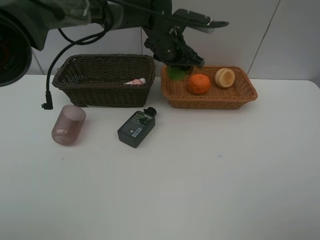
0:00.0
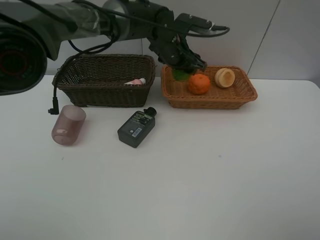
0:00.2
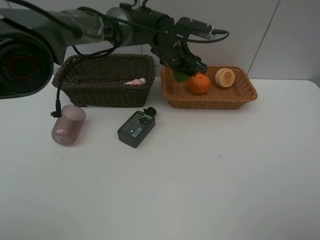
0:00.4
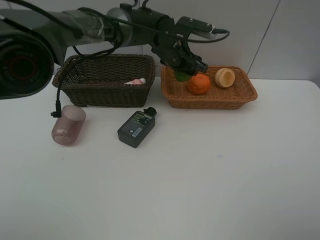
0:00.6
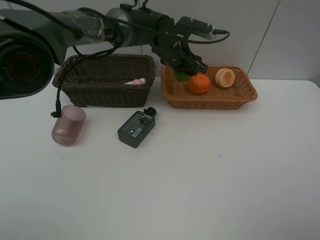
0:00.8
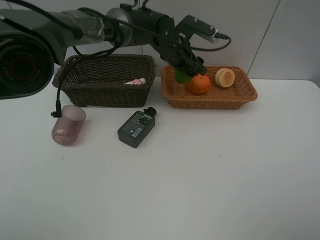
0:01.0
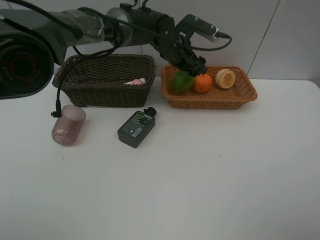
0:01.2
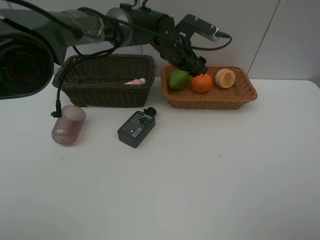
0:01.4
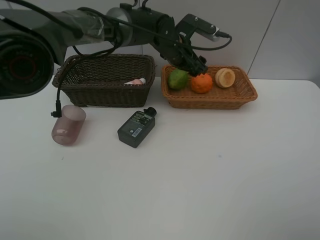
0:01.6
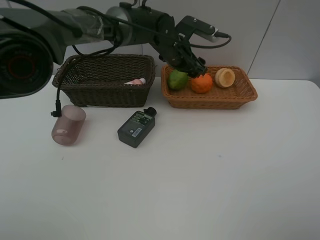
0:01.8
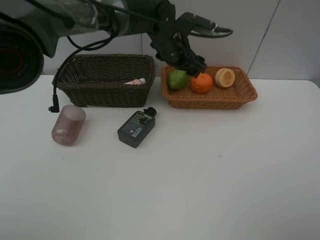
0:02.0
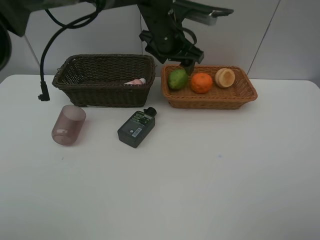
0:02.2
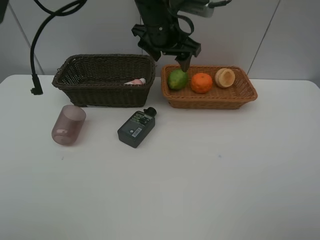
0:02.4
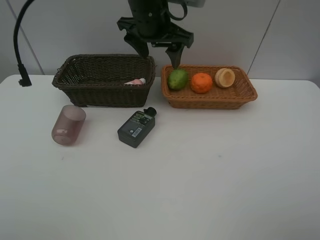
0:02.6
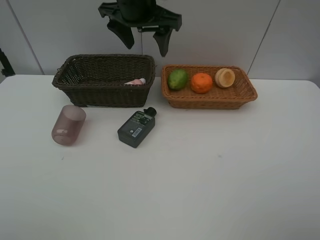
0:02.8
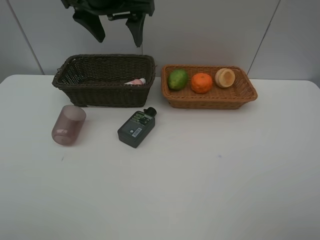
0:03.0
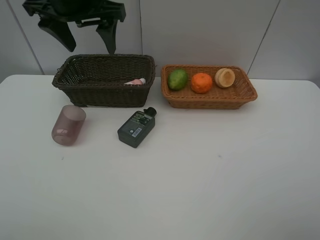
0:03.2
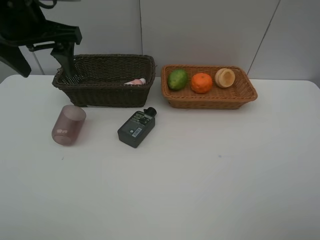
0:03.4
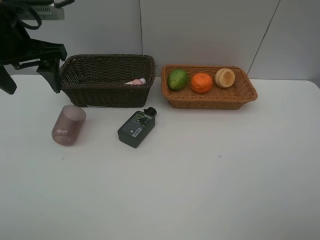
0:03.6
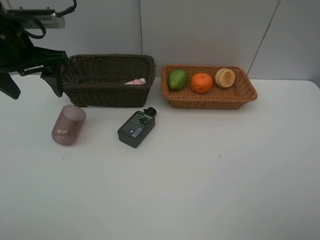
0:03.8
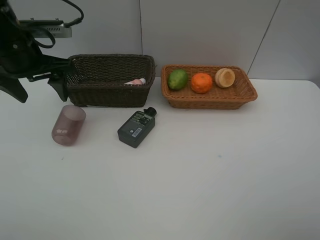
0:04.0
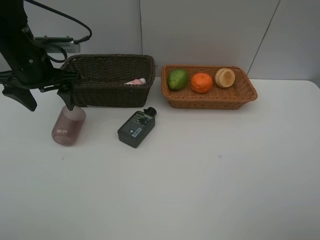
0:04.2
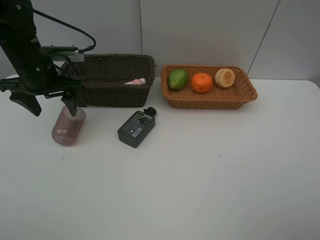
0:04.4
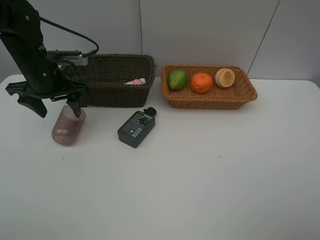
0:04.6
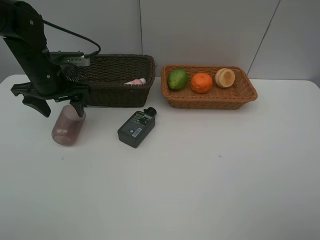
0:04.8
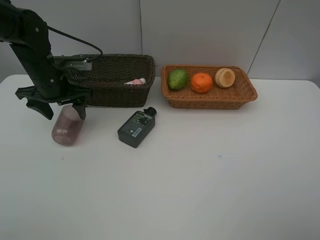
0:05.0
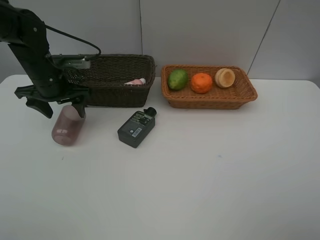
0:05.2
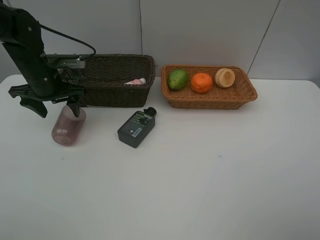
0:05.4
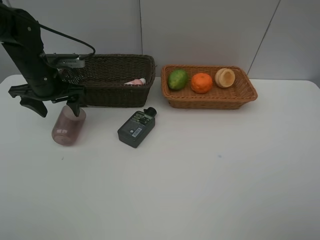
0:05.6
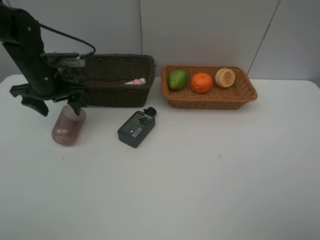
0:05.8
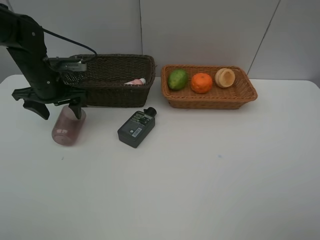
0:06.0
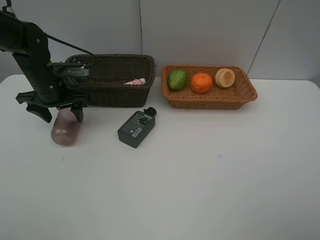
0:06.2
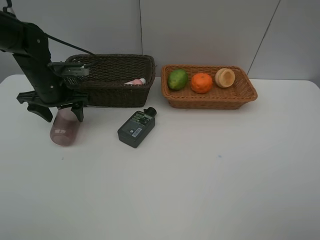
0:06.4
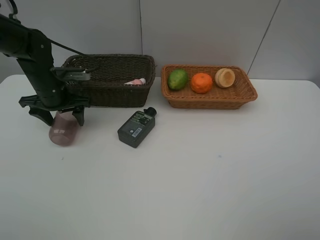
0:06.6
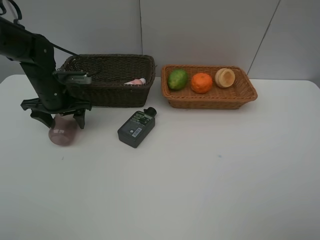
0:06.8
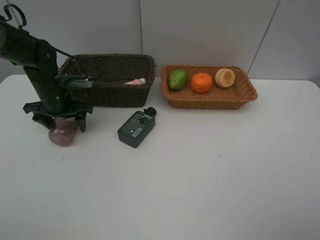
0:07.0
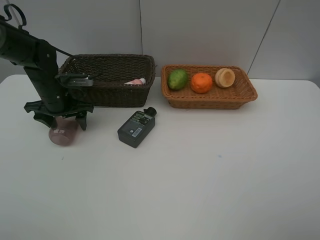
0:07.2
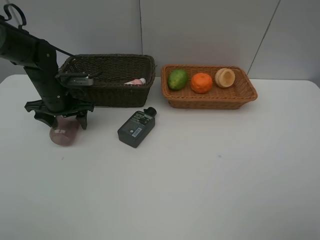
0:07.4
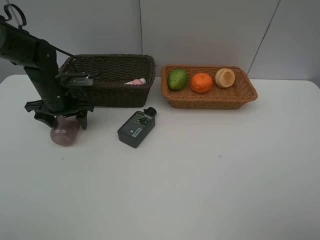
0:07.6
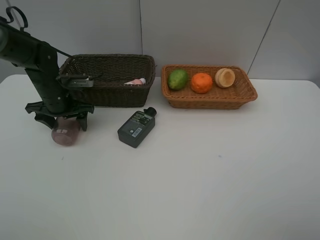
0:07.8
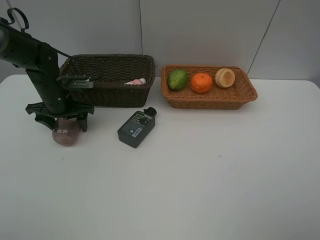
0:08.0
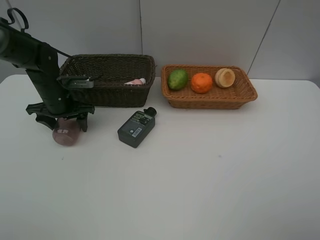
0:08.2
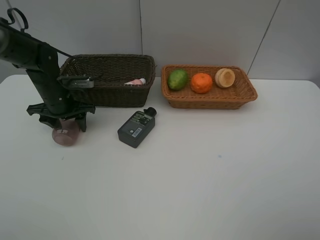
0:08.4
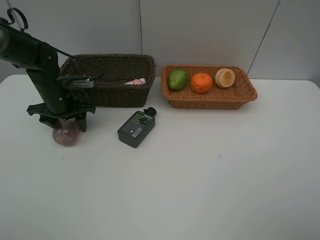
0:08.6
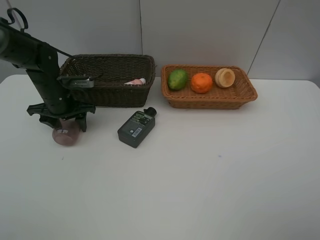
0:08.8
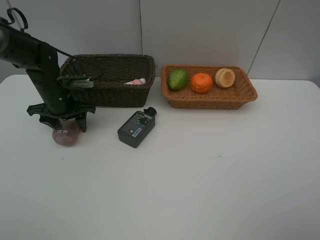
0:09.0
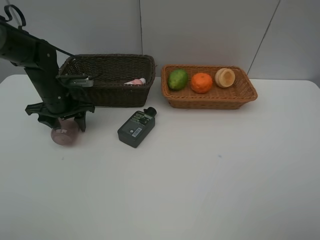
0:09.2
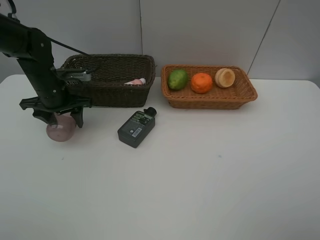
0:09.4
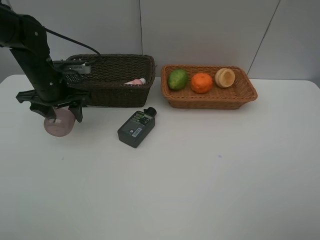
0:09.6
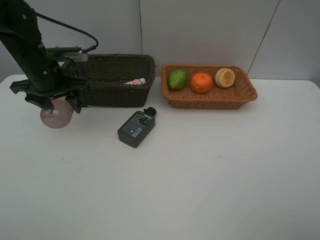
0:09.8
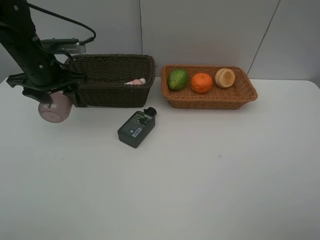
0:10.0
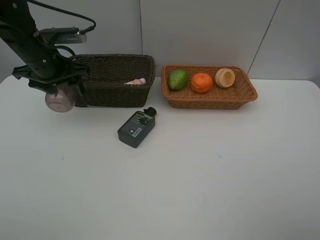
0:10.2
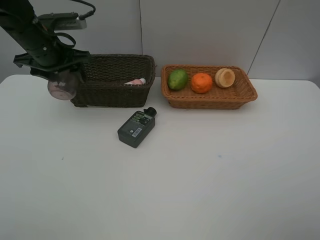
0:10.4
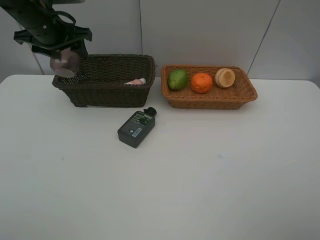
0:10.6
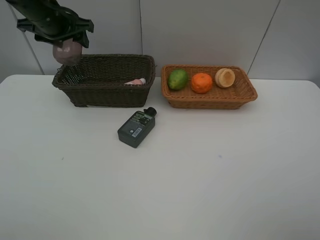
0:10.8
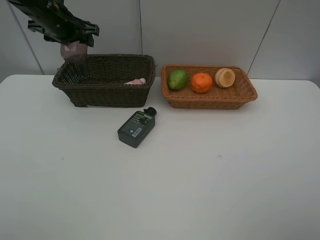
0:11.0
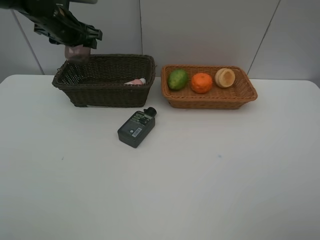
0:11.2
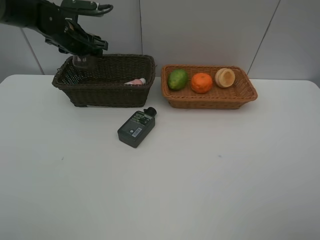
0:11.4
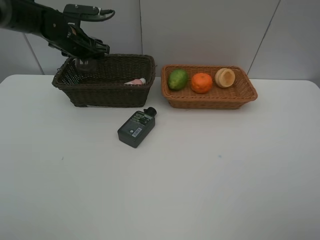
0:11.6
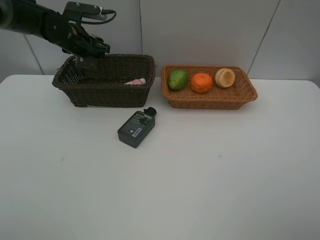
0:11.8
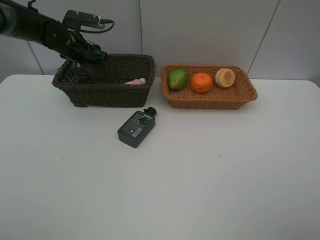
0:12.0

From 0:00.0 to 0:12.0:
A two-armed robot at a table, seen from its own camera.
Task of the whole recording: place multiple objects separately in different baskets.
From 0:00.0 to 0:01.6: The left gripper opens its fingers.
From 0:01.6 to 0:03.0: The left gripper travels upward, to the left and backward by roughly 20 cm.
From 0:03.0 to 0:04.4: The left gripper travels downward and to the left by approximately 20 cm.
From 0:04.4 to 0:06.0: The left gripper moves roughly 5 cm.
From 0:06.0 to 0:07.6: The grippers move only a little.
From 0:07.6 to 0:09.0: The left gripper closes.
From 0:09.0 to 0:10.4: The left gripper is displaced upward by about 15 cm.
From 0:10.4 to 0:12.0: The left gripper shifts roughly 10 cm forward and downward.

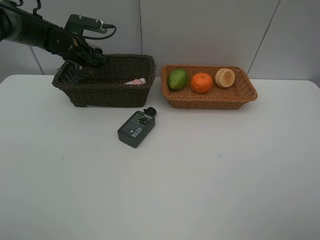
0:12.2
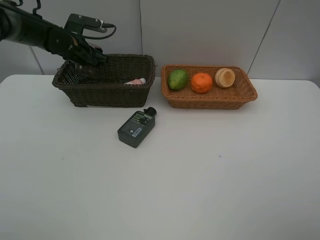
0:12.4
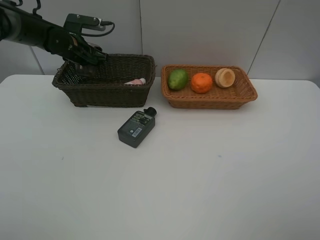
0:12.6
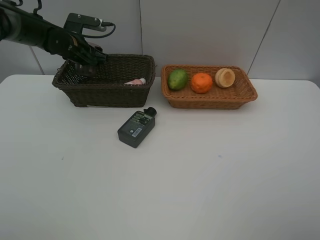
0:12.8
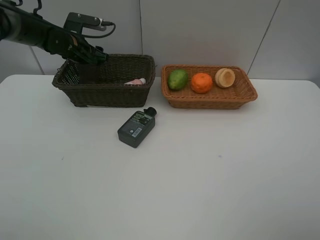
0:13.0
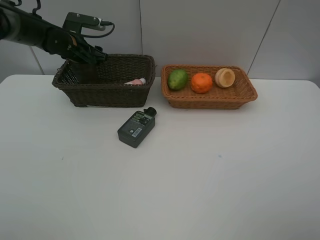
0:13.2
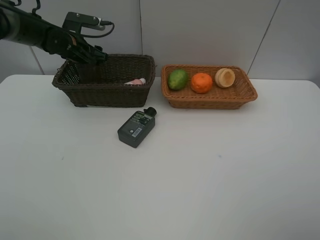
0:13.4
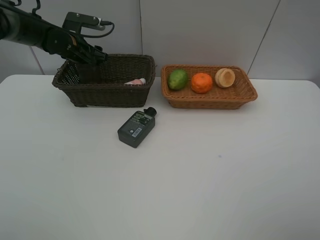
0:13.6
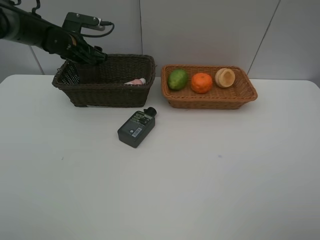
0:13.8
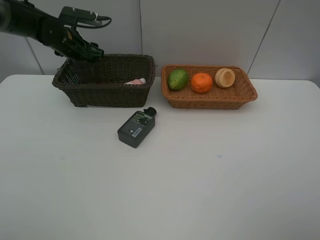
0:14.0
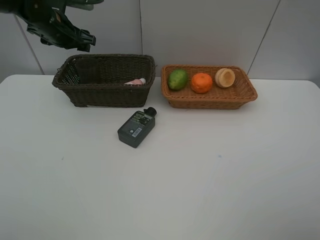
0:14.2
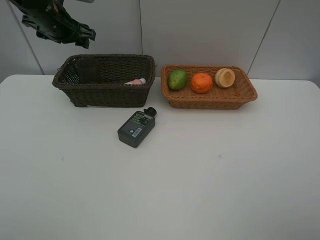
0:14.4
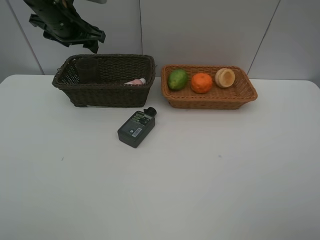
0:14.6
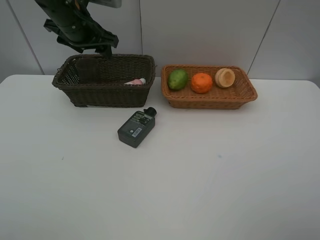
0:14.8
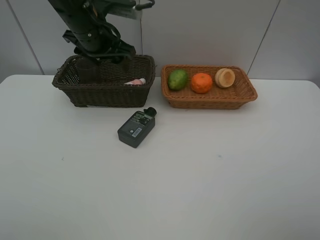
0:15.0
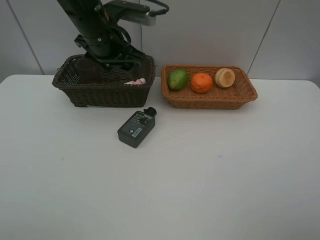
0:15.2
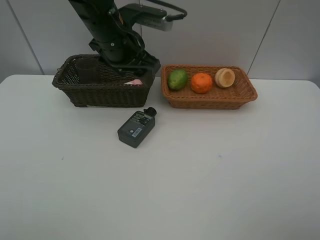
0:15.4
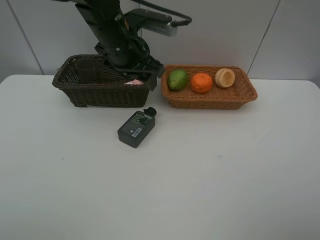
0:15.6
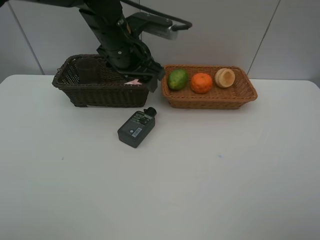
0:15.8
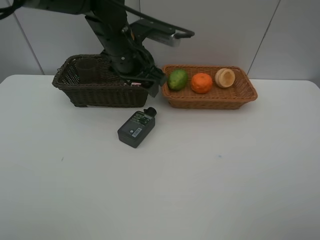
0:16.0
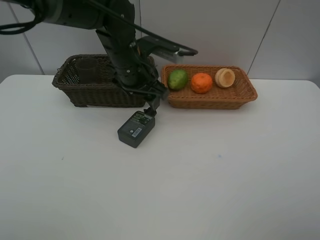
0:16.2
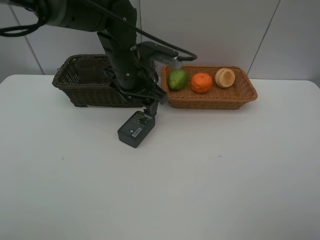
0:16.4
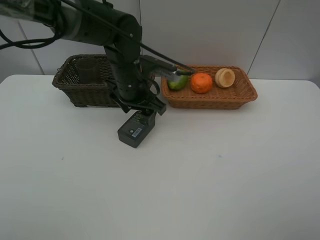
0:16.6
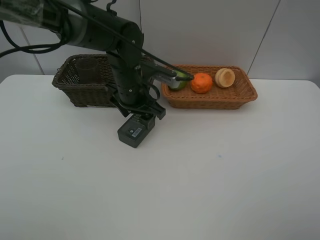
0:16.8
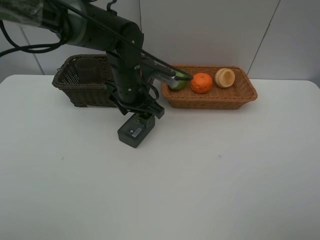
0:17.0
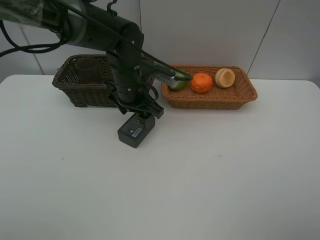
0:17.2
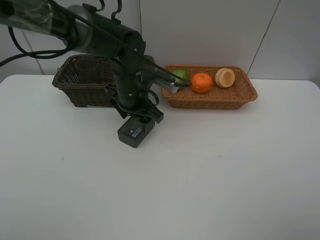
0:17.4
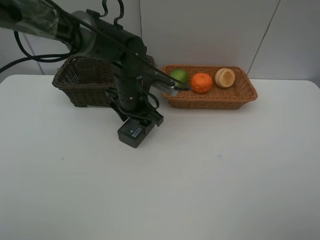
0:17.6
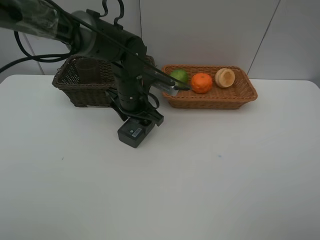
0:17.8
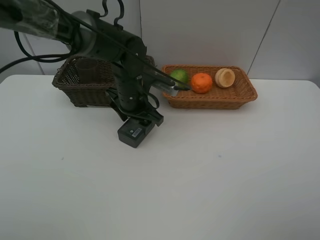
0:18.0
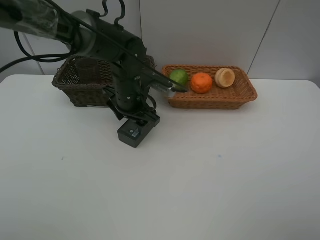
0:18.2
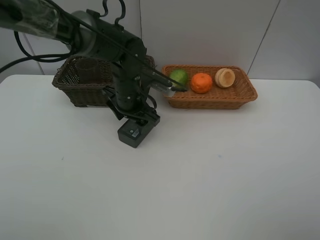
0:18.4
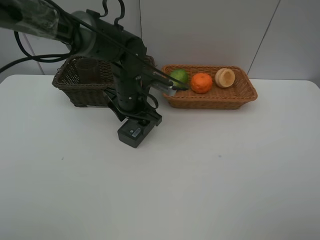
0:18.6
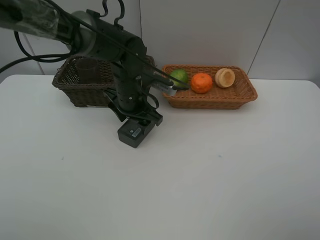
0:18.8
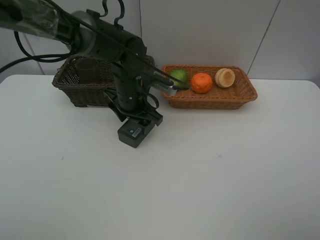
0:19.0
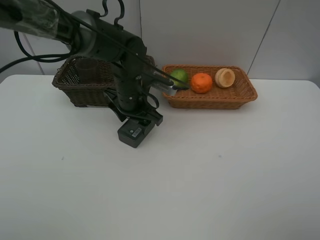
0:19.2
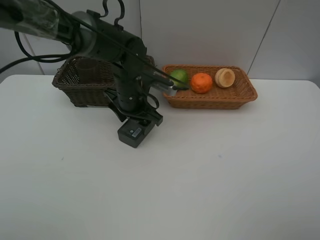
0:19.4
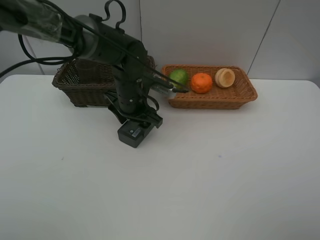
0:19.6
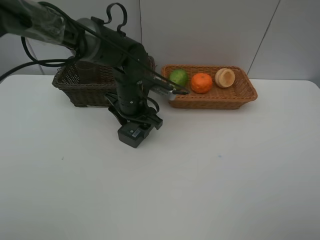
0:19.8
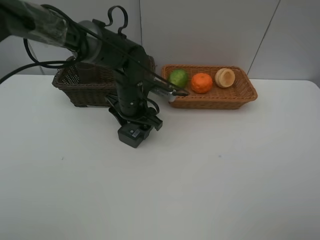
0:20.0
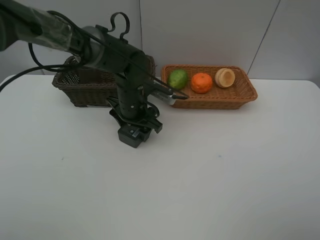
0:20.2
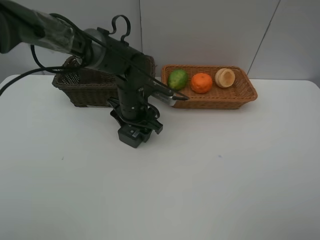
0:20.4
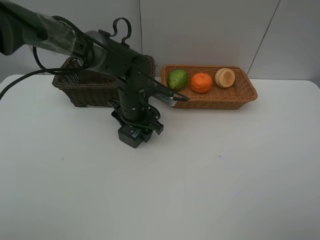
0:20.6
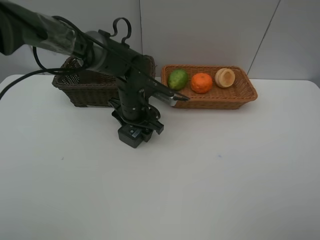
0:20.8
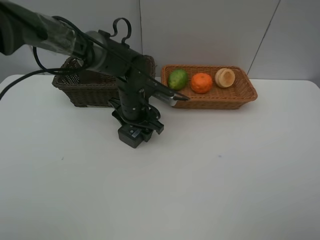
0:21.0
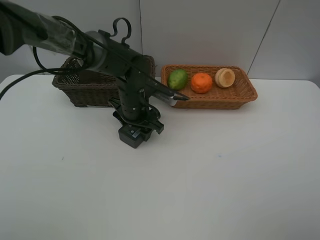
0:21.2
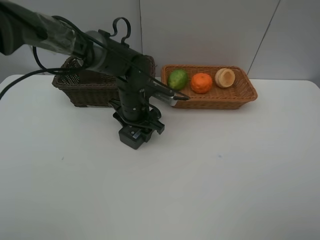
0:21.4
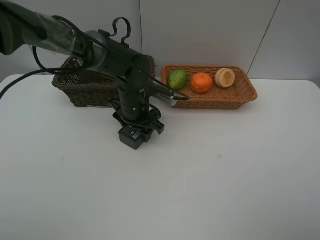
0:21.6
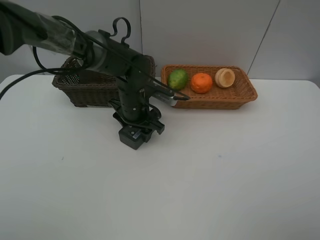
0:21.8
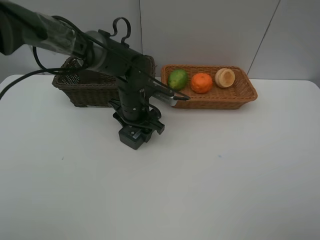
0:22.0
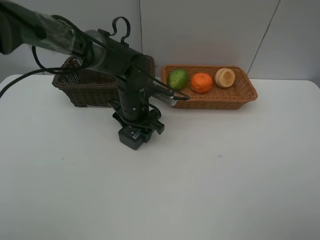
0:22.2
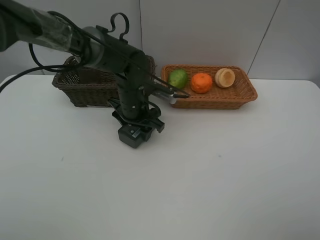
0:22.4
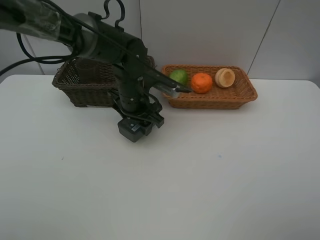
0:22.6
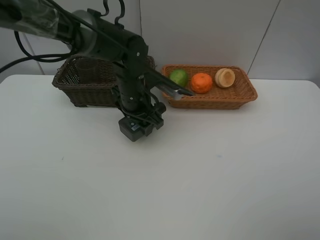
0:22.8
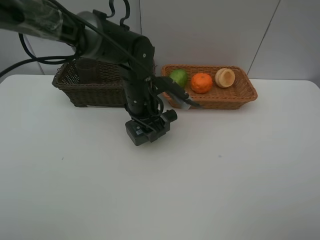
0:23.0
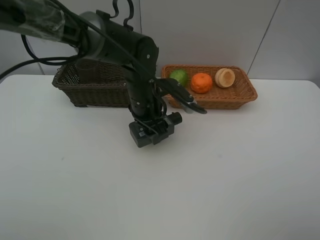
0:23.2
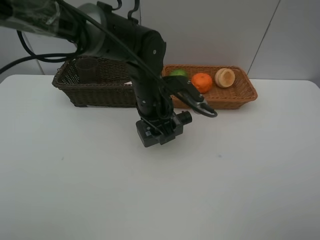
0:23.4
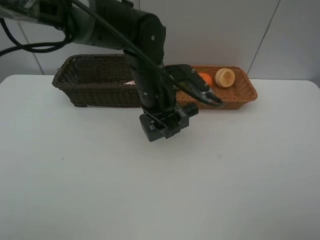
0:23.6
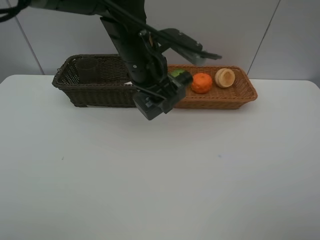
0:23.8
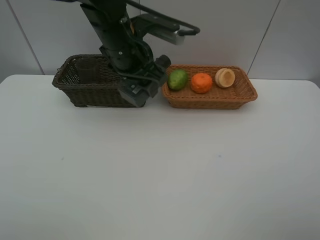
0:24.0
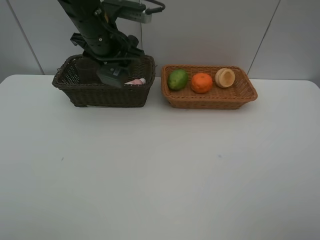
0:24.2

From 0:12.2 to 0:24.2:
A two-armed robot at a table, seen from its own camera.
Task of the whole recording: place multiple objects separately in different baskets.
From 0:12.2 to 0:13.8: The two grippers keep their place.
From 0:13.8 to 0:15.2: The left gripper heads to the right, backward and upward, covering about 20 cm.
From 0:15.2 to 0:16.6: The left gripper heads downward, covering about 10 cm.
From 0:16.6 to 0:18.2: The grippers move only a little.
From 0:18.2 to 0:19.8: Both grippers stay put.
From 0:19.8 to 0:22.6: The grippers stay close to where they were, moving slightly.
From 0:22.6 to 0:24.2: The left gripper moves upward and to the left, approximately 15 cm.
